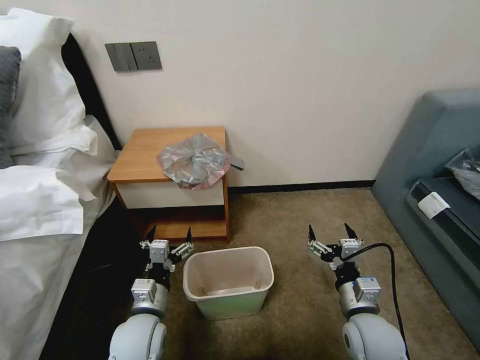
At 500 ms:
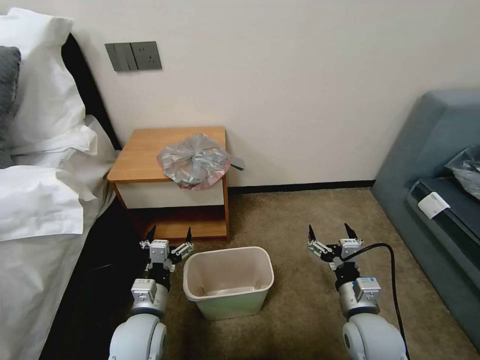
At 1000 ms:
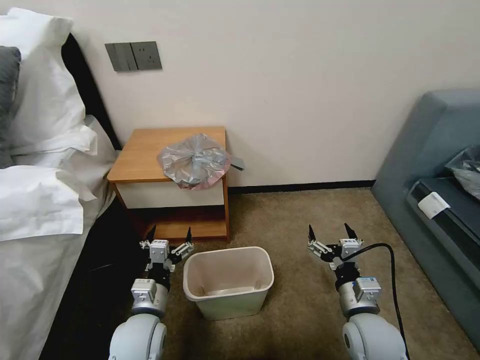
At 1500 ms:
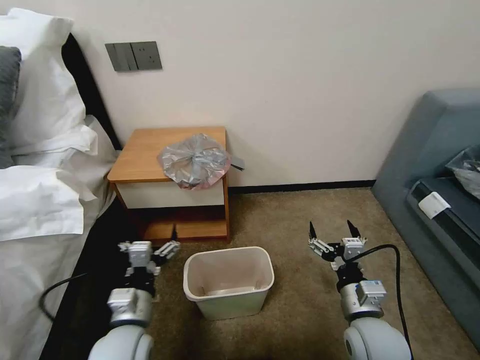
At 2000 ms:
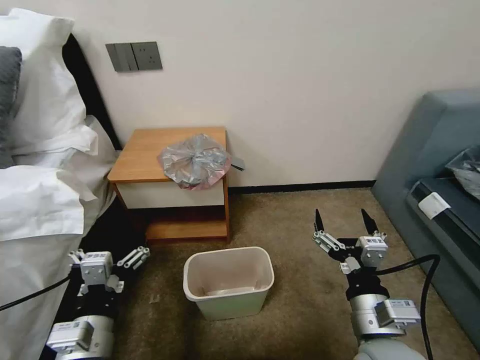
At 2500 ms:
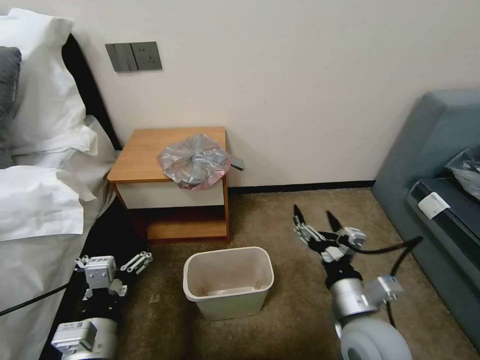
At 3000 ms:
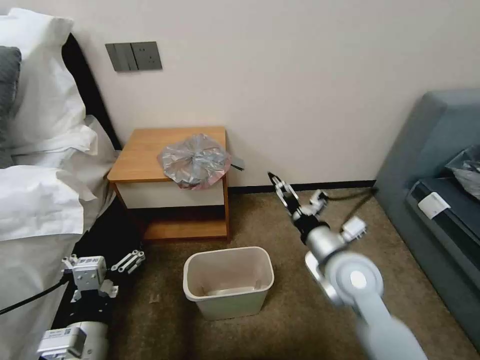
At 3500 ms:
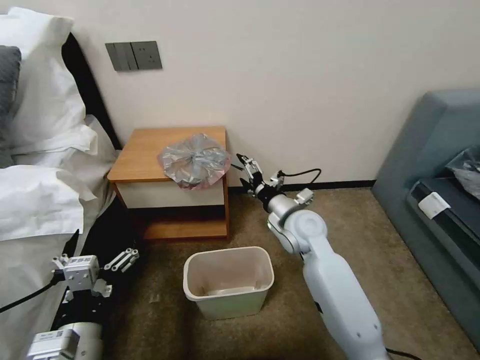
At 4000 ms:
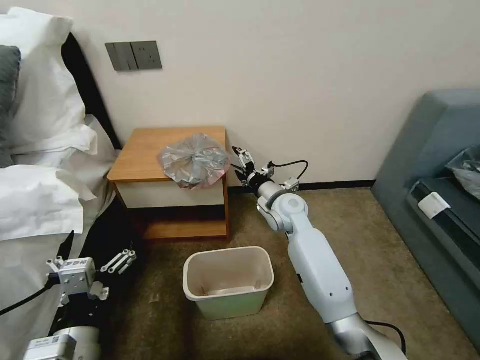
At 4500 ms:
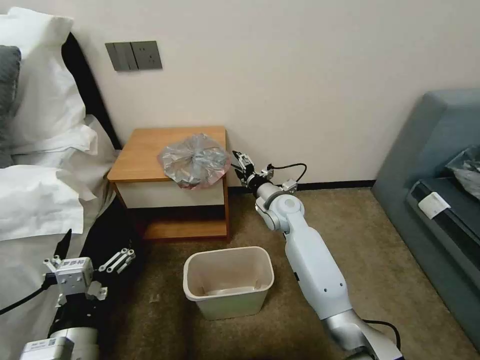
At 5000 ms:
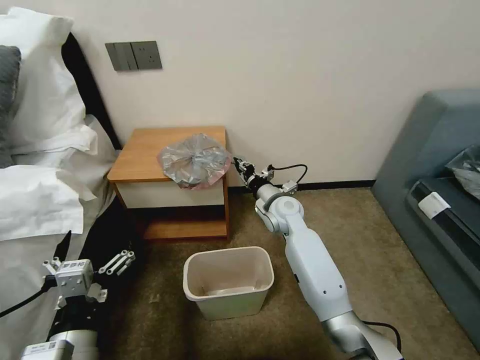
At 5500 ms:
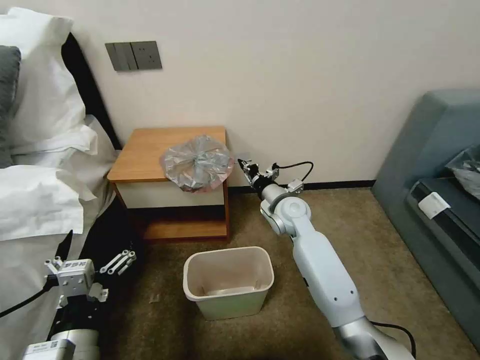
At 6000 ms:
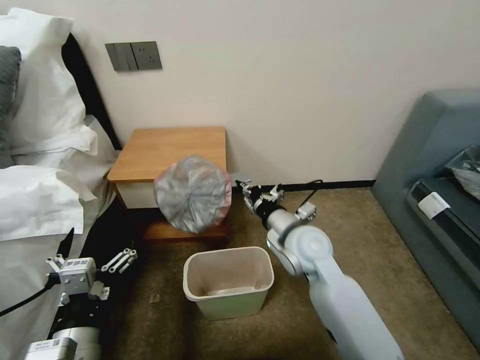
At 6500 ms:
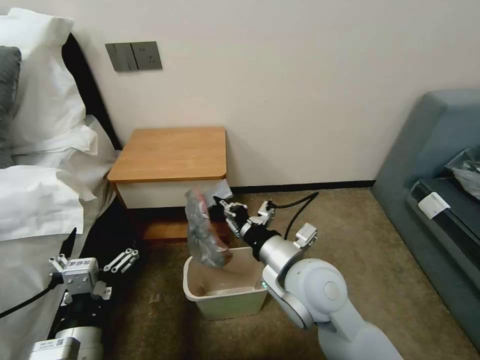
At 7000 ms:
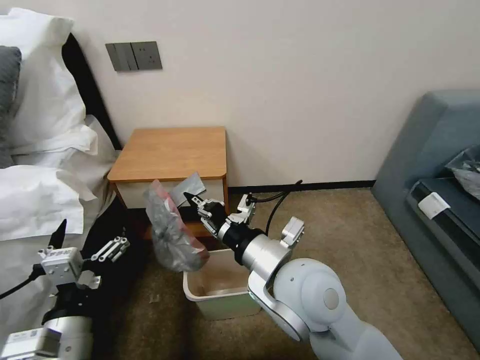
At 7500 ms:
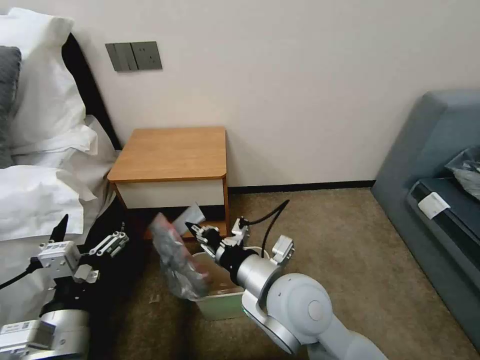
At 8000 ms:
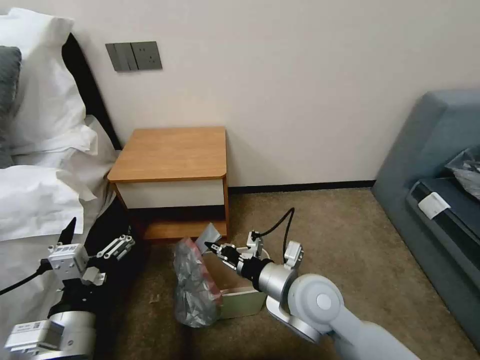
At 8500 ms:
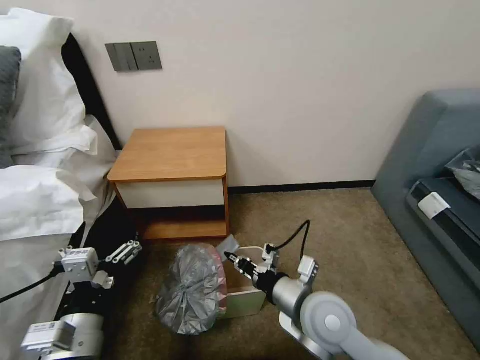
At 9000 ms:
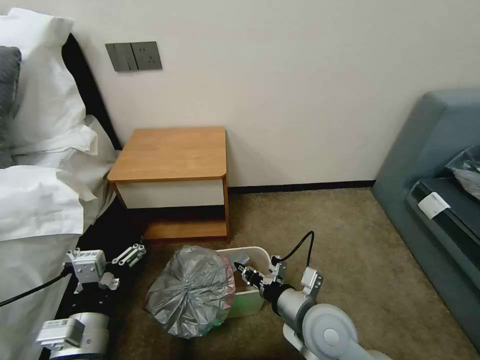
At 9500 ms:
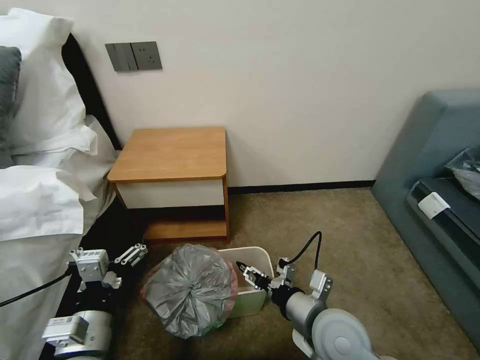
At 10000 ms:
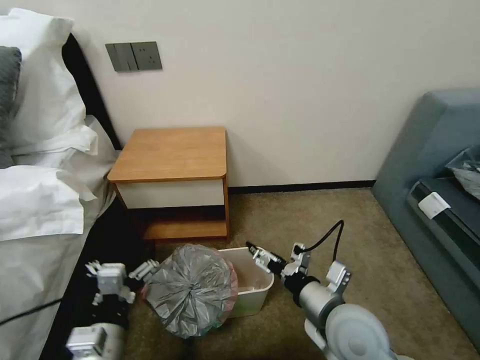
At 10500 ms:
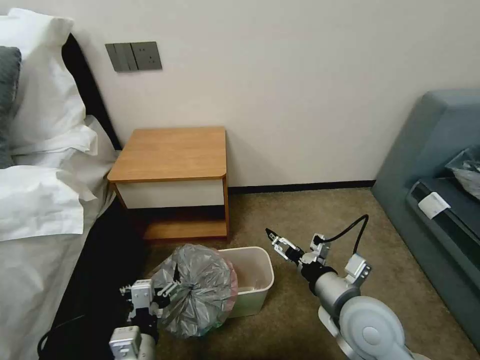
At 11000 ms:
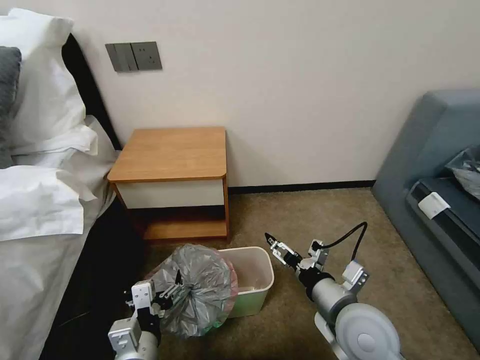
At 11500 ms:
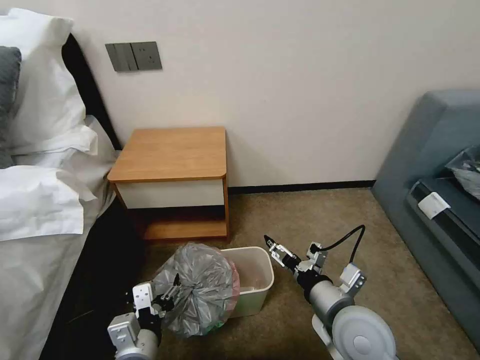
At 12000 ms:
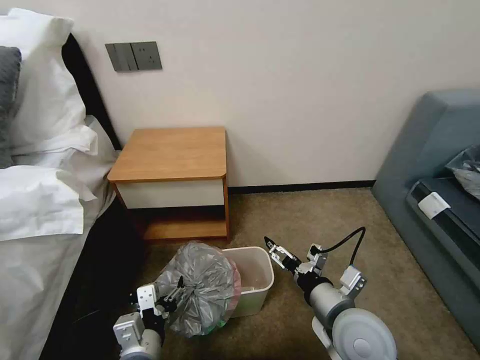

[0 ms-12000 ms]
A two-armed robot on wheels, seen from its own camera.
Task of the whole recording: Pick up the garbage bag from the table and place it over the trash can.
2000 ms to 4000 ms: The right gripper goes approximately 35 cm forward.
4000 ms to 6000 ms: The right gripper is displaced backward by approximately 15 cm, and closes its fingers.
6000 ms to 8000 ms: The right gripper goes some 10 cm backward.
8000 ms to 10000 ms: The right gripper is displaced to the right and backward by about 10 cm, and opens up. Meanwhile the left gripper travels downward by approximately 5 cm.
10000 ms to 12000 ms: The left gripper is displaced to the right by some 5 cm.

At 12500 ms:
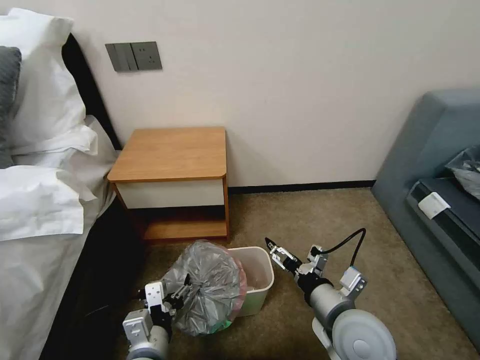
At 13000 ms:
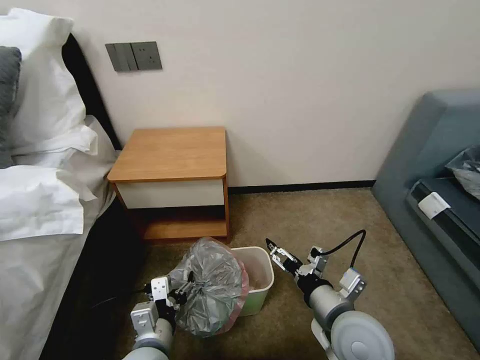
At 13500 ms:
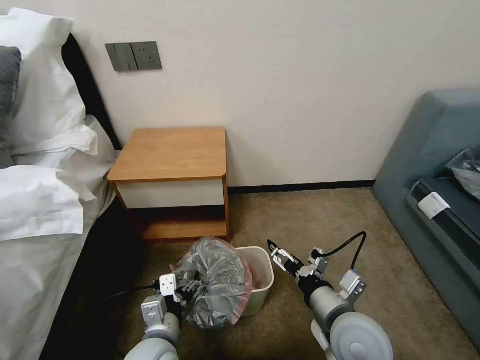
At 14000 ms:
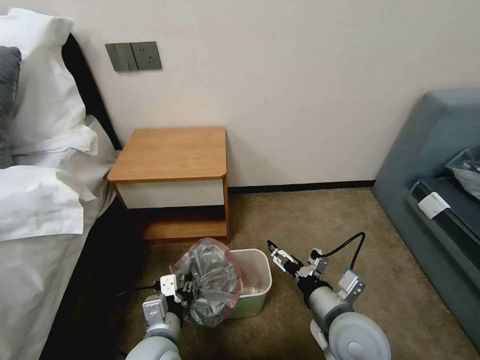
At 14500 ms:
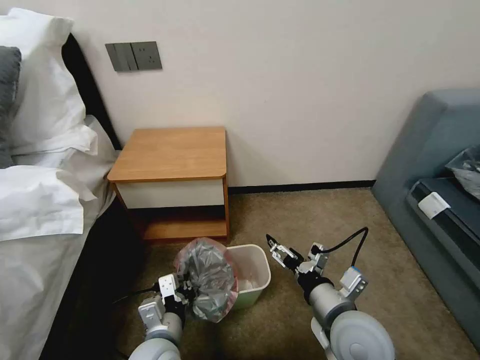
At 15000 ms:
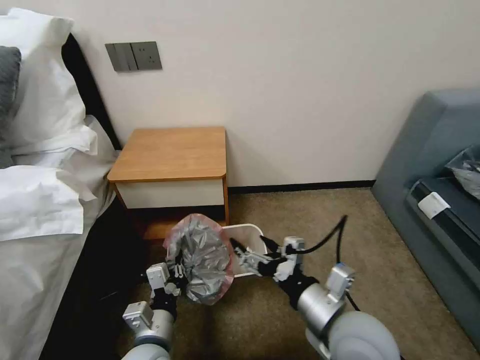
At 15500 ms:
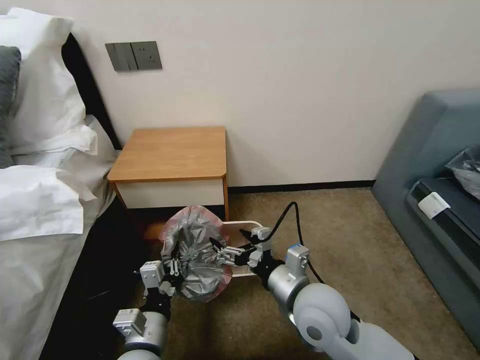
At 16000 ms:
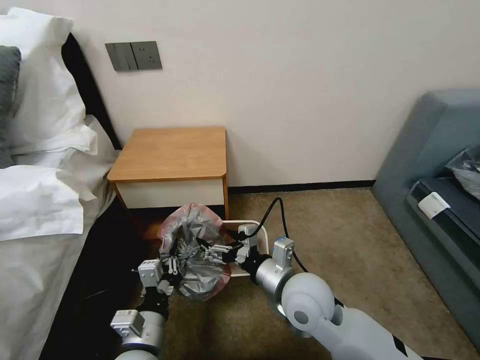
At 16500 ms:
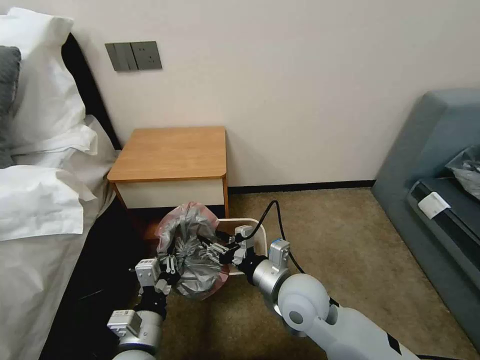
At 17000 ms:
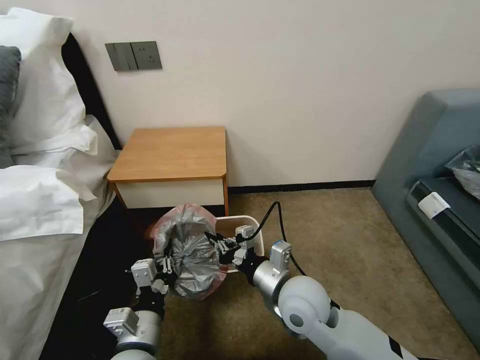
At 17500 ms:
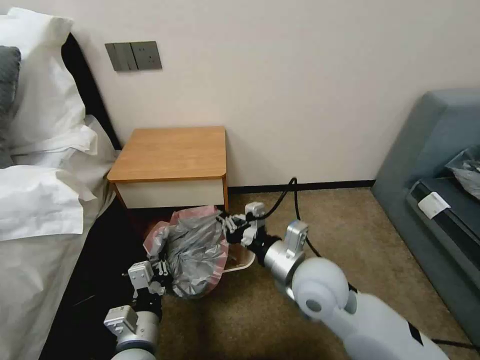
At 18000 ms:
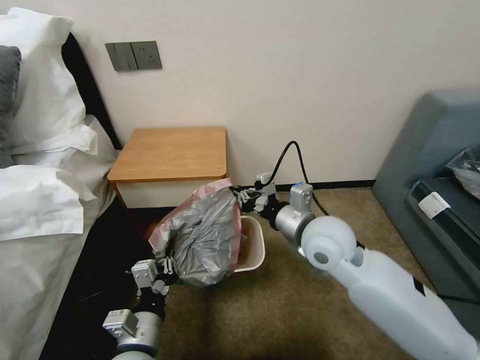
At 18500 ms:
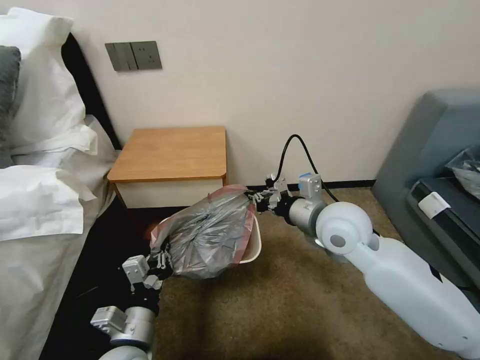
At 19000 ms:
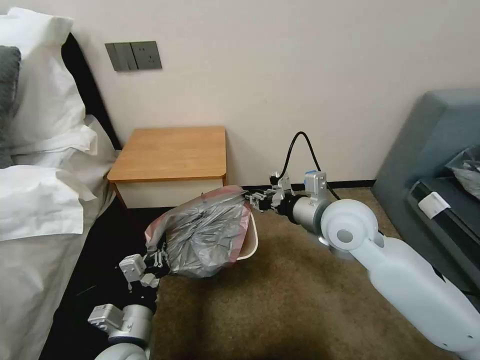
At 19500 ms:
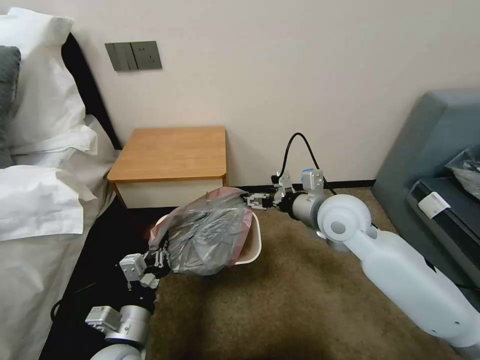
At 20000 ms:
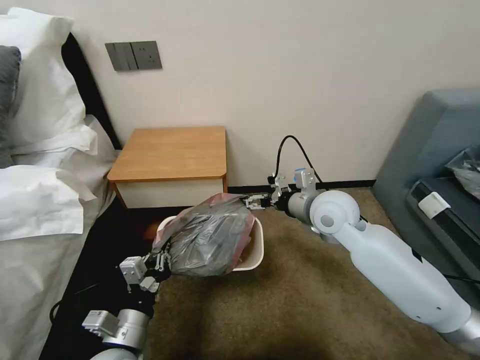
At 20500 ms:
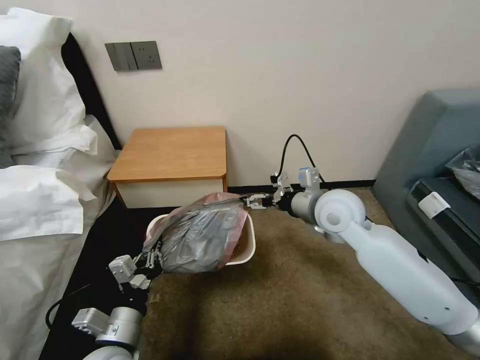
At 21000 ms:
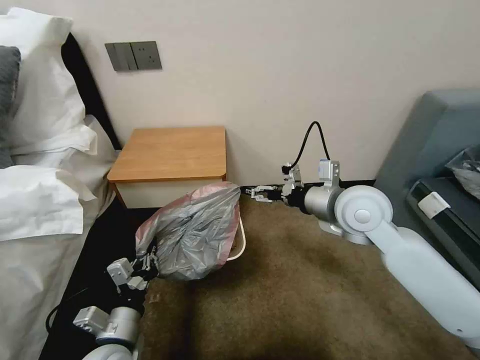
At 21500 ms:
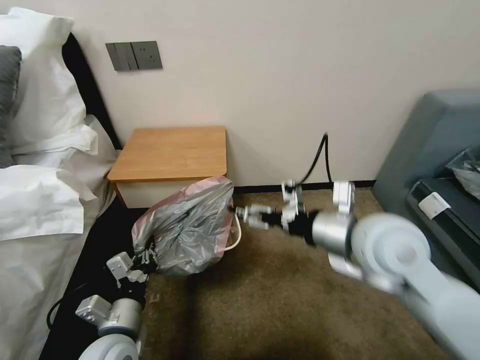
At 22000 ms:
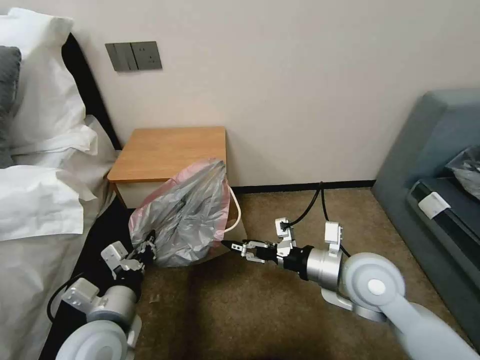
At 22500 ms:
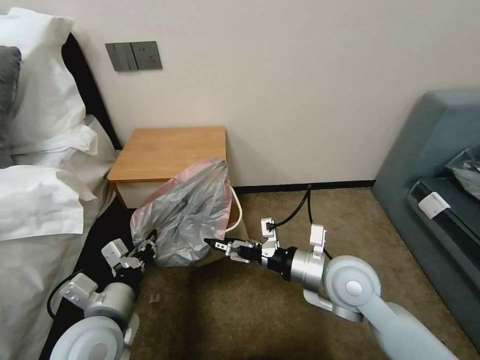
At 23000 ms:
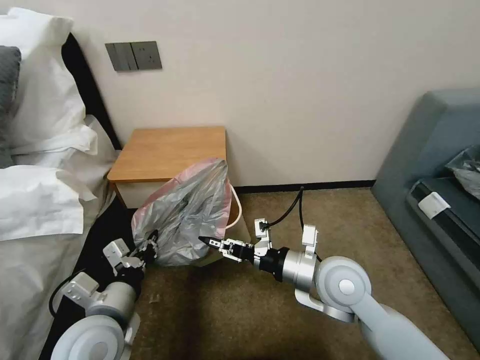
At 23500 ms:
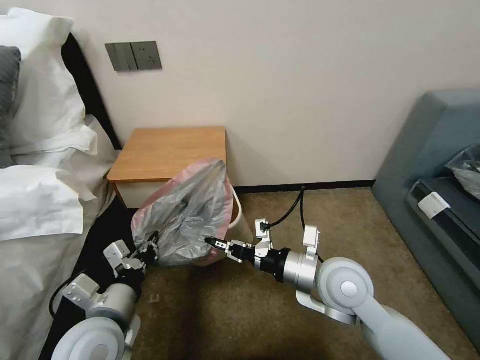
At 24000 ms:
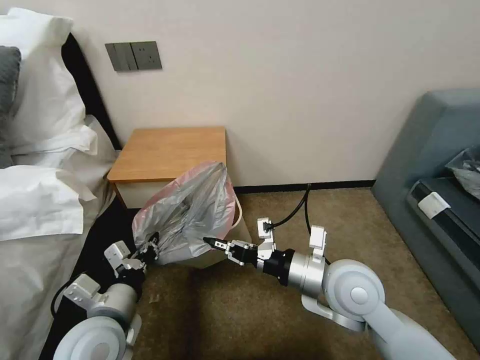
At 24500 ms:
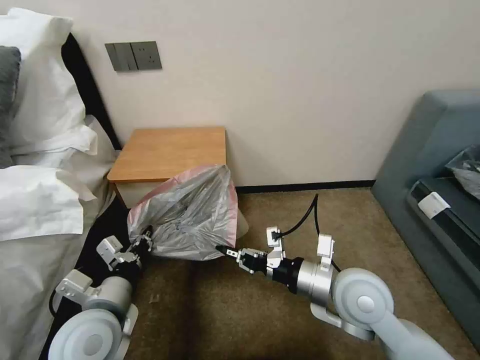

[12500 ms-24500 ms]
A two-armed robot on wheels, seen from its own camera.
Task of the whole recording: Pick up the garbage bag from the table and place it over the trash can.
12500 ms to 14500 ms: The left gripper closes.
14500 ms to 16500 ms: The right gripper moves to the left and forward, some 10 cm, and closes.
16500 ms to 18500 ms: The right gripper is displaced upward, forward and to the right by some 15 cm, and closes.
18500 ms to 20500 ms: The right gripper moves some 5 cm, and opens up.
20500 ms to 22500 ms: The right gripper shifts roughly 15 cm backward and downward. Meanwhile the left gripper heads upward, covering some 5 cm.
22500 ms to 24500 ms: The right gripper closes up.

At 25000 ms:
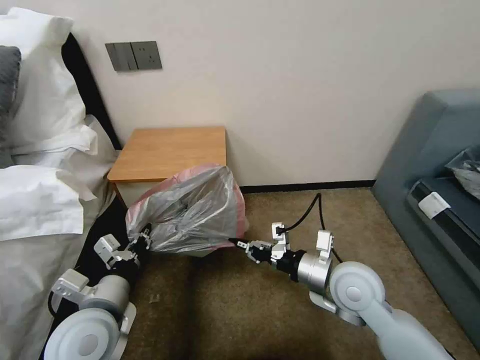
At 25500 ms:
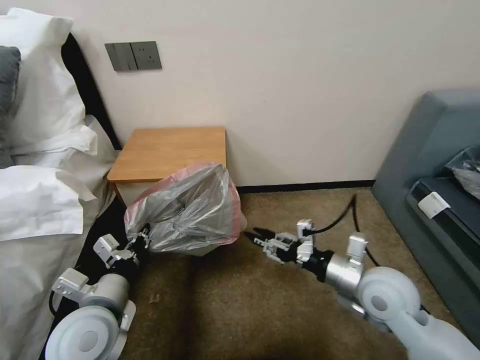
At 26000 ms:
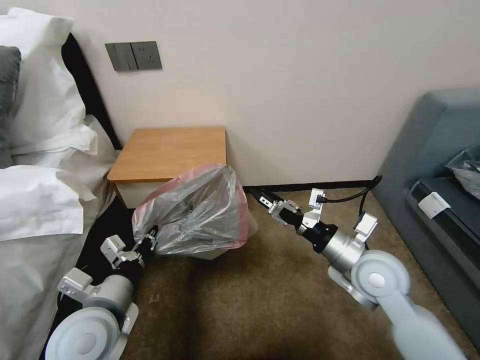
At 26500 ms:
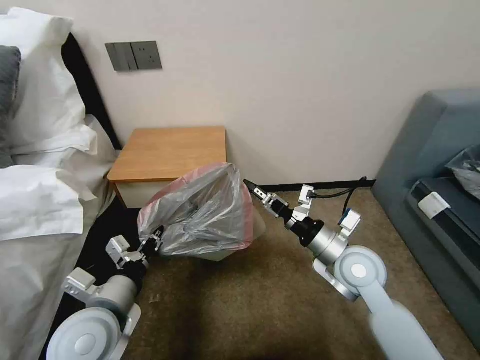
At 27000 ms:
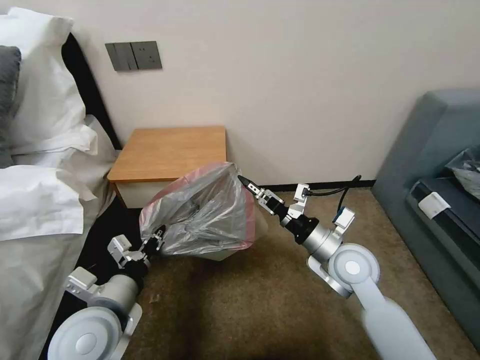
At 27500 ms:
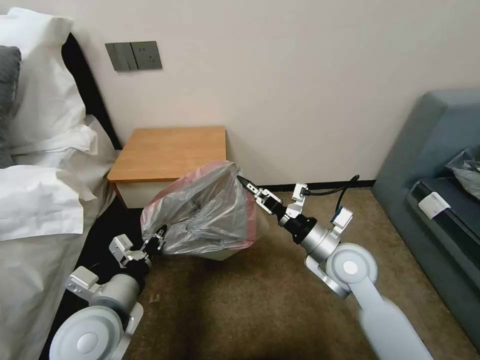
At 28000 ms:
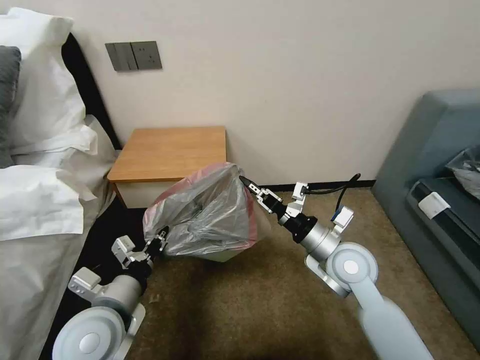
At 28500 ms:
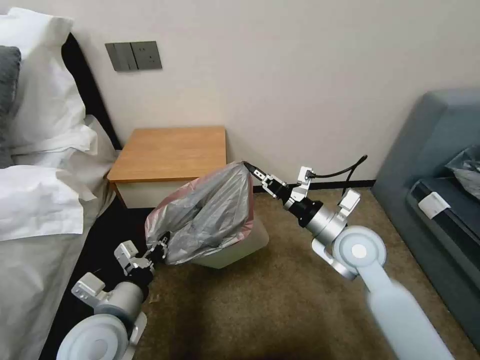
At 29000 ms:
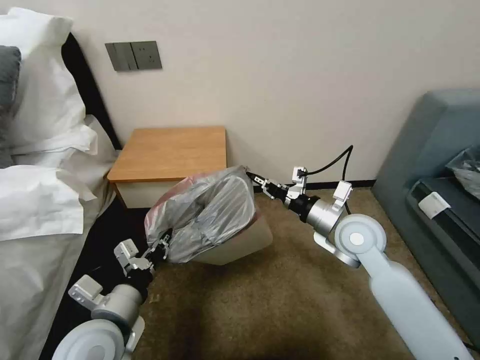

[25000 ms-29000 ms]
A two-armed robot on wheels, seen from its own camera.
Task of the whole recording: Pick up the garbage bag from the table and place it over the trash can.
25000 ms to 27000 ms: The right gripper opens.
27000 ms to 29000 ms: The right gripper changes place by about 5 cm, and closes its fingers.
